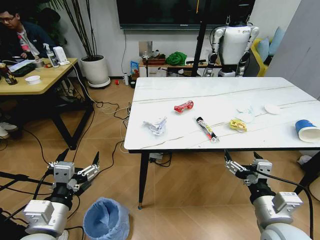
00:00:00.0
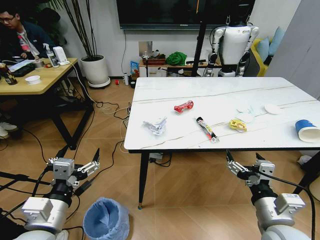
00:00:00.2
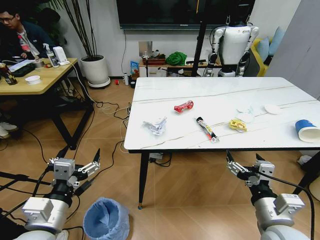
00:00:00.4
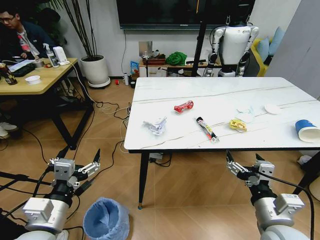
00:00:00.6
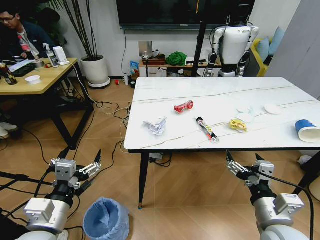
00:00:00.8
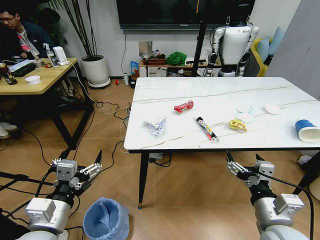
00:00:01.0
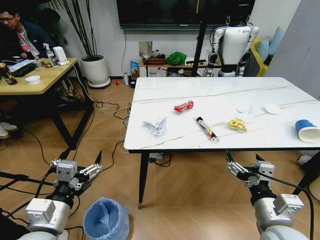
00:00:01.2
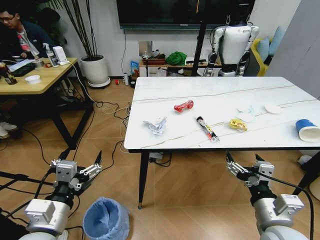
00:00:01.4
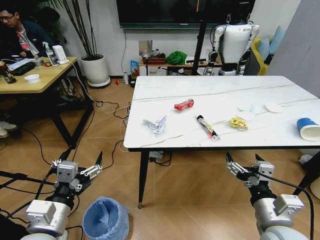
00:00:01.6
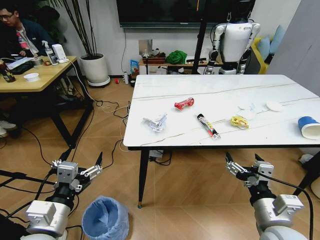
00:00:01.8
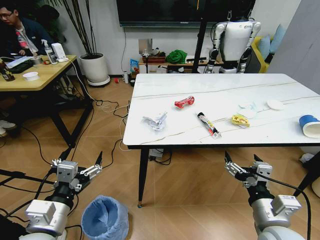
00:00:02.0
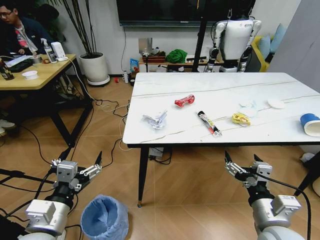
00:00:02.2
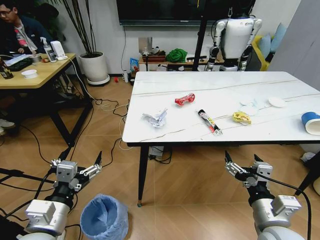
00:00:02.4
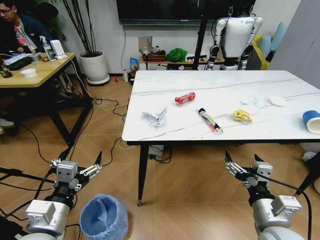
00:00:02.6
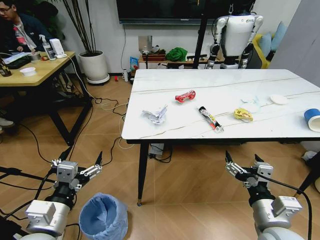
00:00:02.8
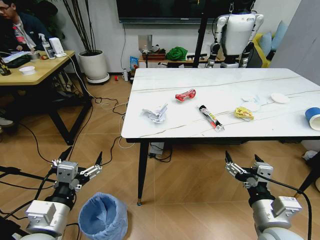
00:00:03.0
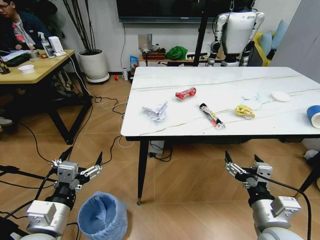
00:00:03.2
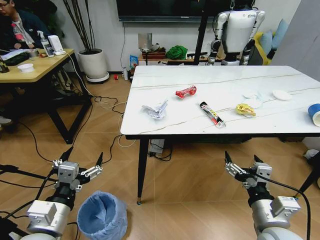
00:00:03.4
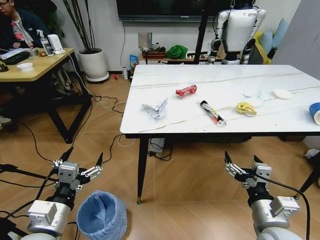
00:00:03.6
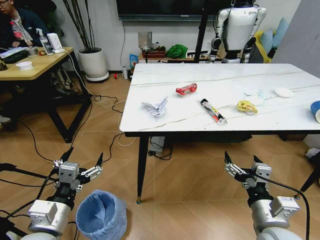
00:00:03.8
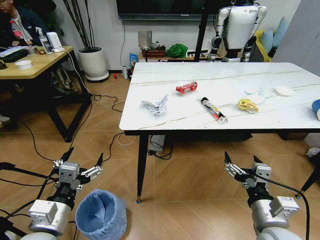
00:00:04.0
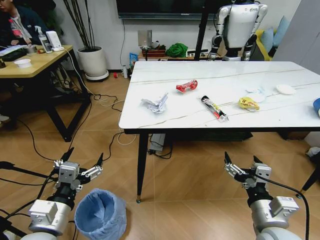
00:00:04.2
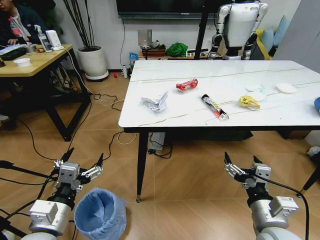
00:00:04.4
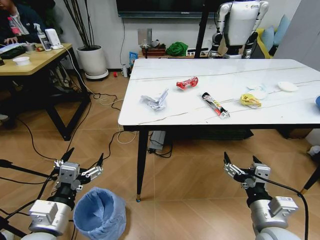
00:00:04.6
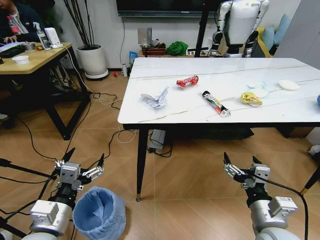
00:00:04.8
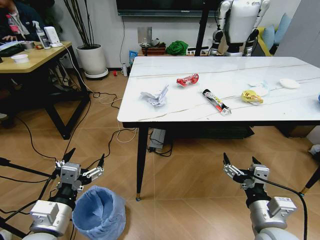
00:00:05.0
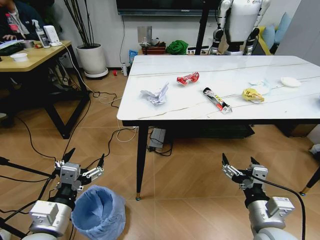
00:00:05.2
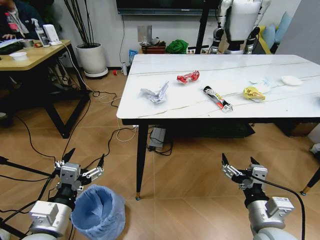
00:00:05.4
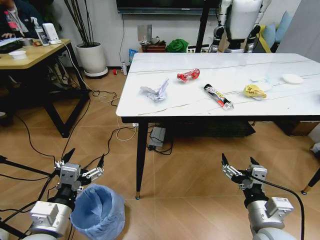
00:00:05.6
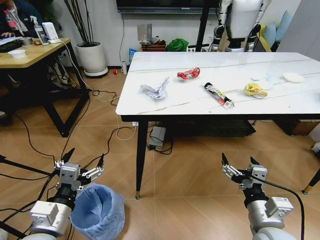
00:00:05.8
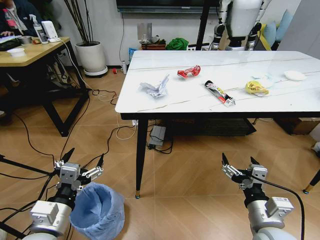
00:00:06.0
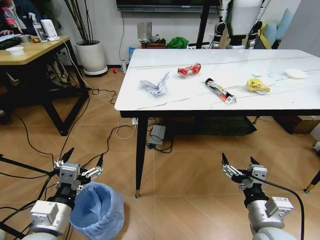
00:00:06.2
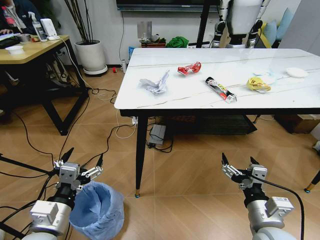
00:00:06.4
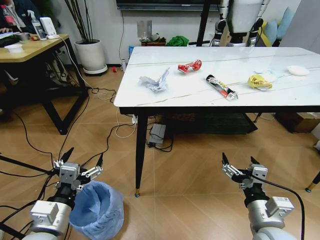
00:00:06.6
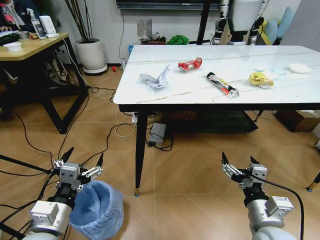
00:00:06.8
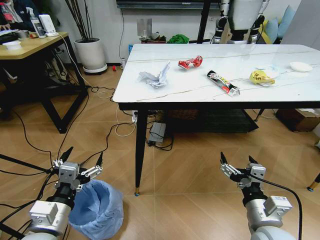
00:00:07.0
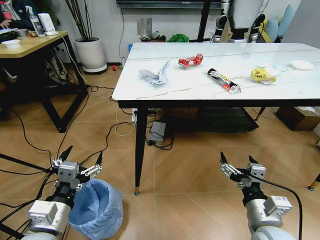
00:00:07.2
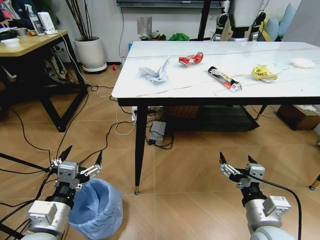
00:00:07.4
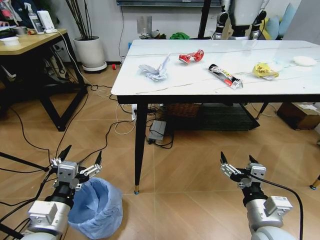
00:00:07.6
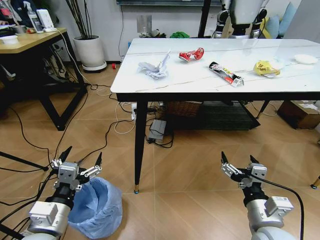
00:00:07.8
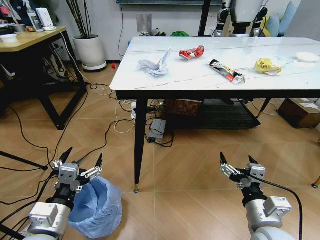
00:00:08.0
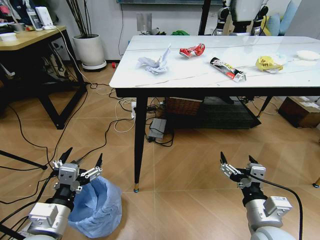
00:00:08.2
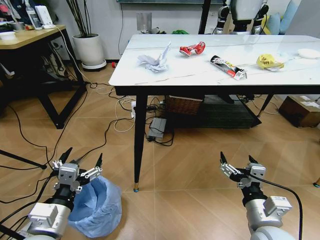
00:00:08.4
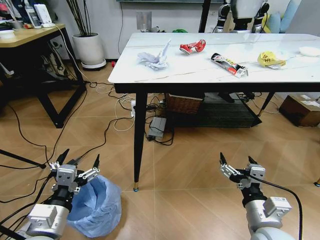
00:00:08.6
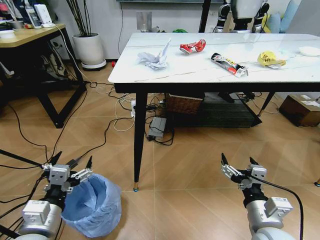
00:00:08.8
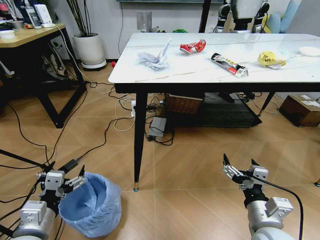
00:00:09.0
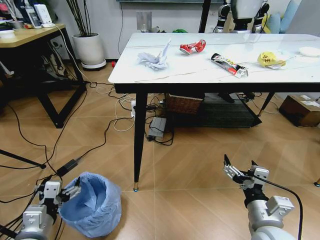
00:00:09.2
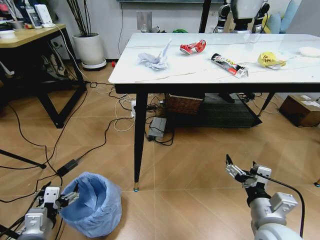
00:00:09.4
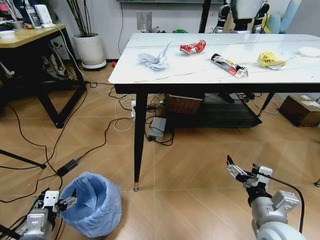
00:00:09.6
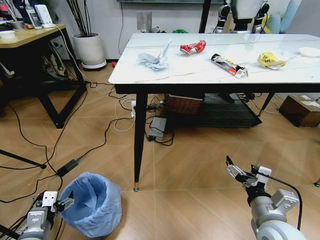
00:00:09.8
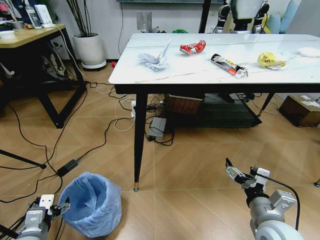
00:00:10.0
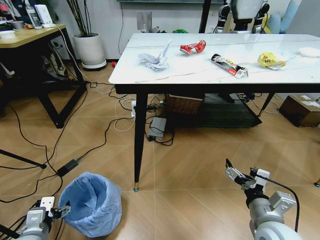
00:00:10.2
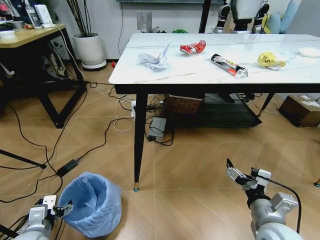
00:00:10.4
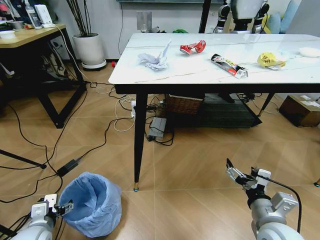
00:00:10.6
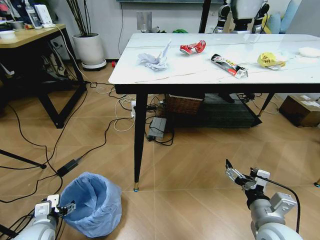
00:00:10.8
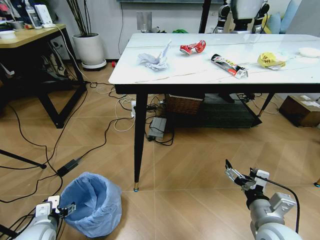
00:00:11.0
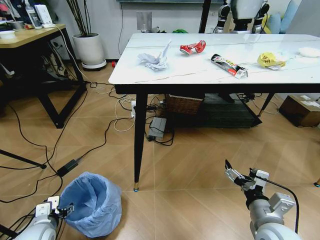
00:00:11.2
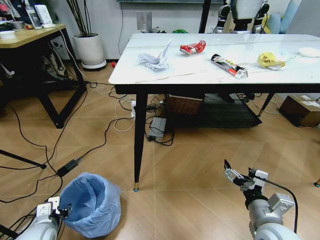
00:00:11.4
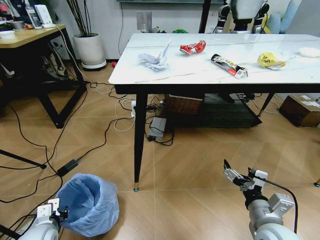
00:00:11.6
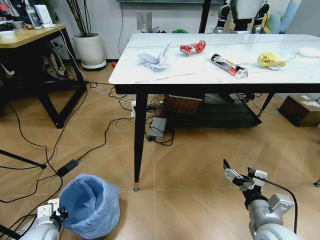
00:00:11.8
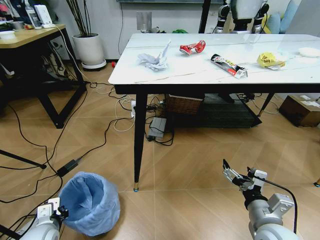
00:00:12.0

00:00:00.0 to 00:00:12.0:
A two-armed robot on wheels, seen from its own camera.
Task of the whole recording: Pick up the trash bin and place the trash from the table into it.
00:00:09.0 to 00:00:10.4: The left gripper shifts about 10 cm downward and to the left.
00:00:10.4 to 00:00:12.0: The left gripper closes its fingers.

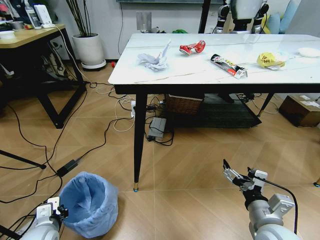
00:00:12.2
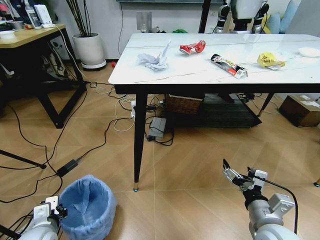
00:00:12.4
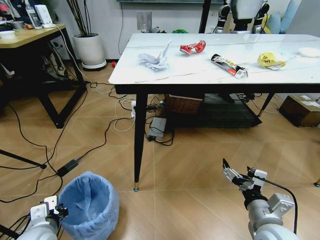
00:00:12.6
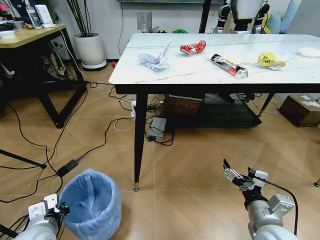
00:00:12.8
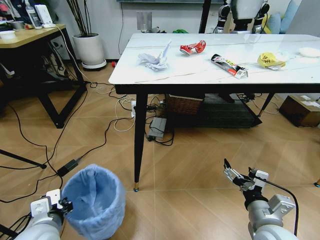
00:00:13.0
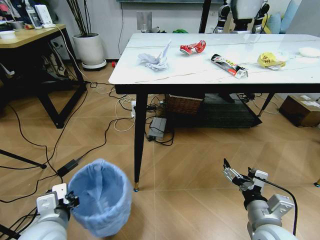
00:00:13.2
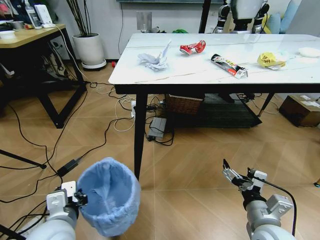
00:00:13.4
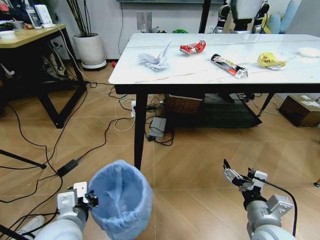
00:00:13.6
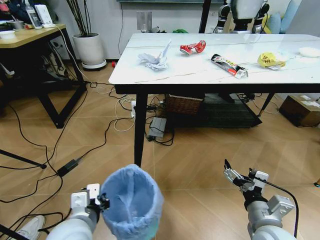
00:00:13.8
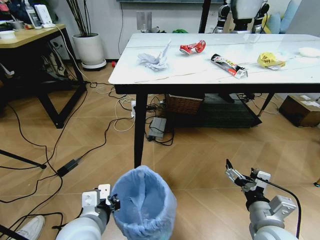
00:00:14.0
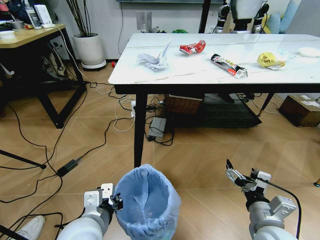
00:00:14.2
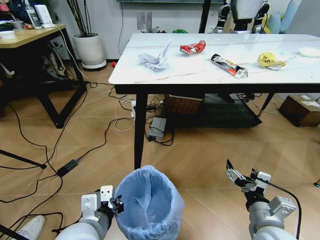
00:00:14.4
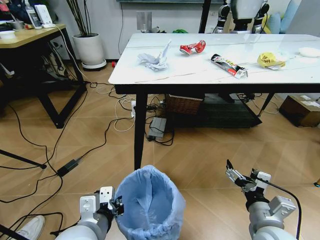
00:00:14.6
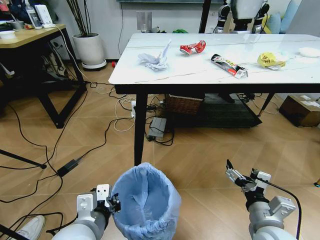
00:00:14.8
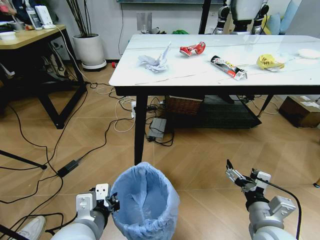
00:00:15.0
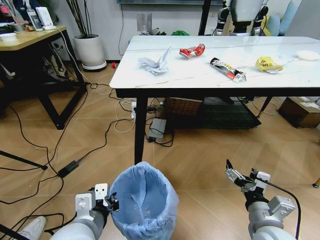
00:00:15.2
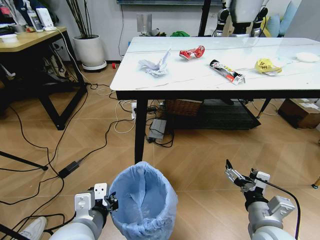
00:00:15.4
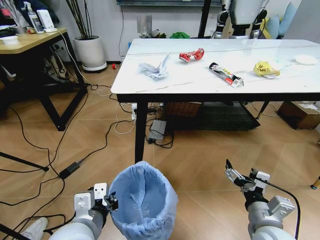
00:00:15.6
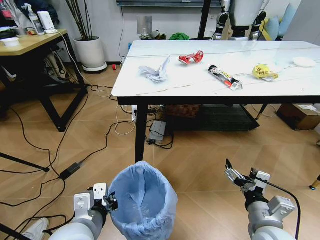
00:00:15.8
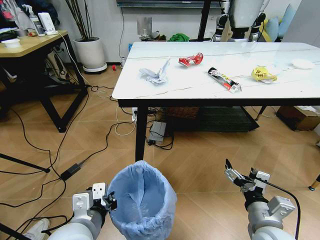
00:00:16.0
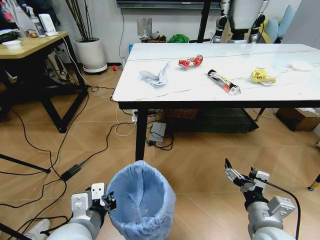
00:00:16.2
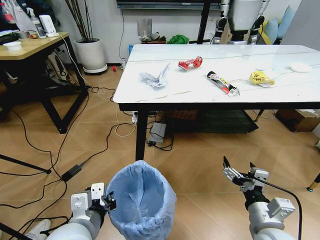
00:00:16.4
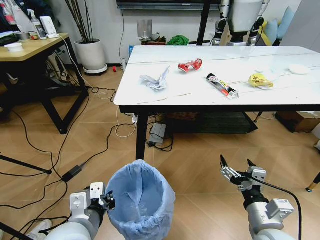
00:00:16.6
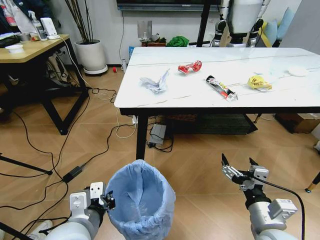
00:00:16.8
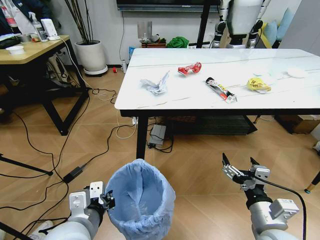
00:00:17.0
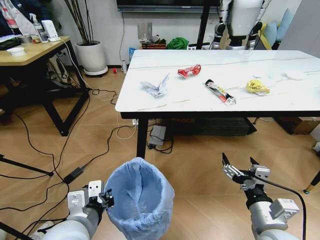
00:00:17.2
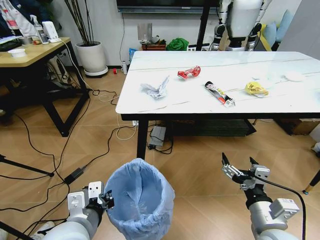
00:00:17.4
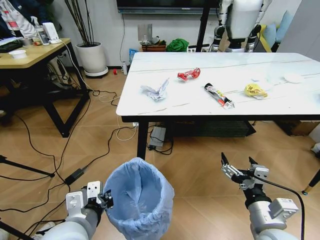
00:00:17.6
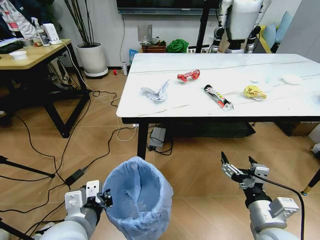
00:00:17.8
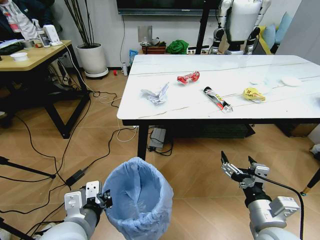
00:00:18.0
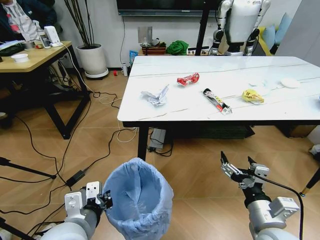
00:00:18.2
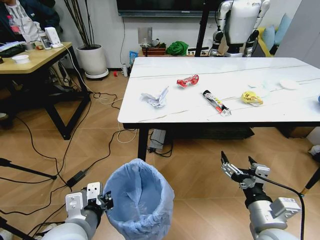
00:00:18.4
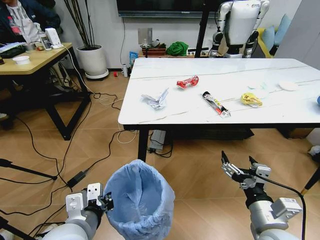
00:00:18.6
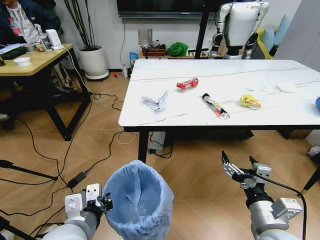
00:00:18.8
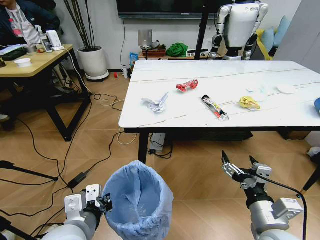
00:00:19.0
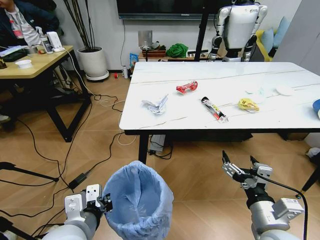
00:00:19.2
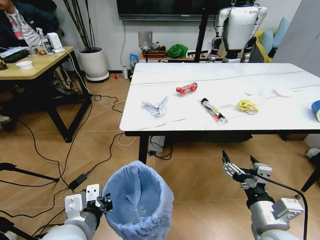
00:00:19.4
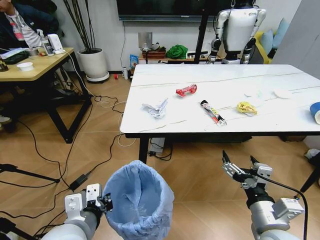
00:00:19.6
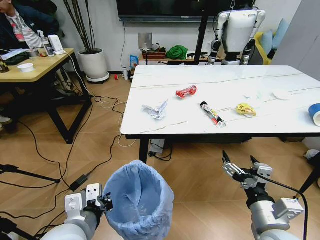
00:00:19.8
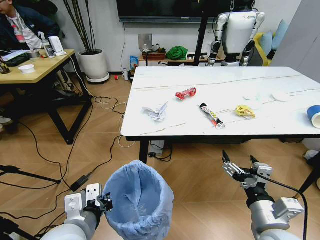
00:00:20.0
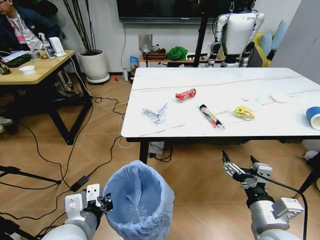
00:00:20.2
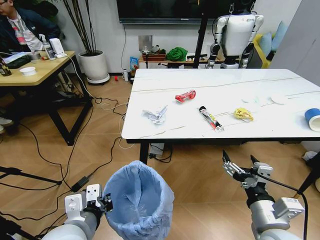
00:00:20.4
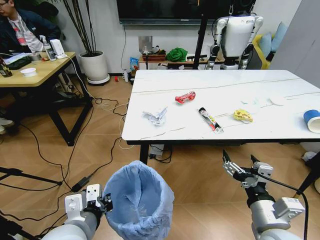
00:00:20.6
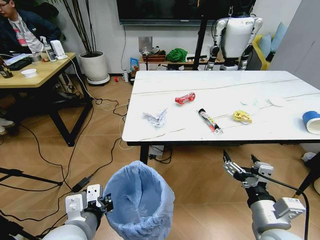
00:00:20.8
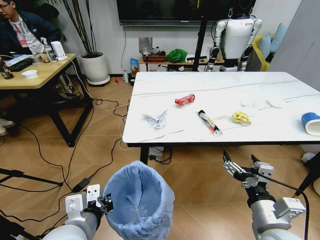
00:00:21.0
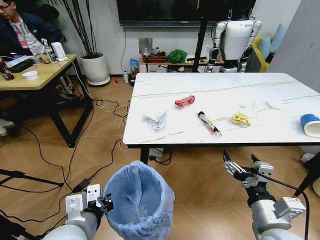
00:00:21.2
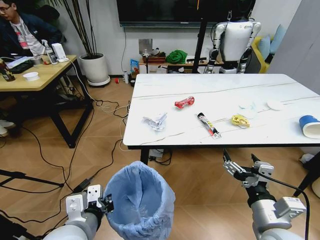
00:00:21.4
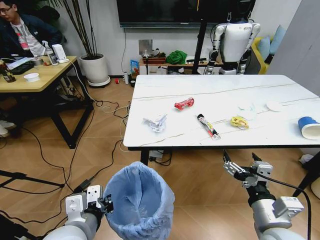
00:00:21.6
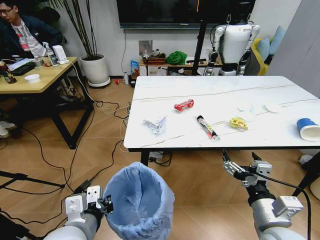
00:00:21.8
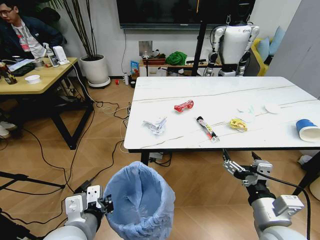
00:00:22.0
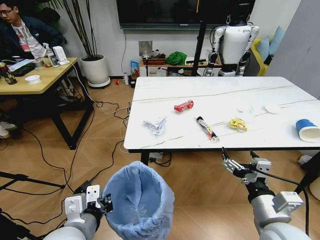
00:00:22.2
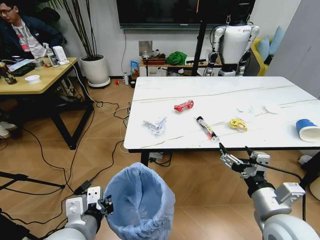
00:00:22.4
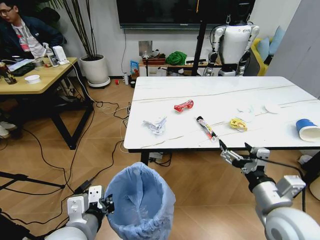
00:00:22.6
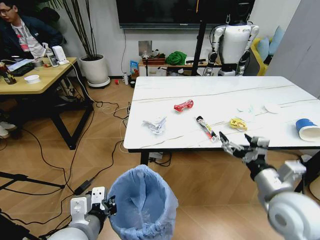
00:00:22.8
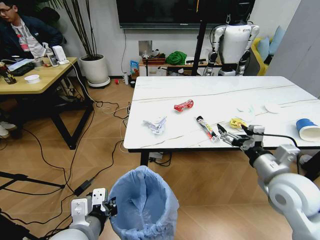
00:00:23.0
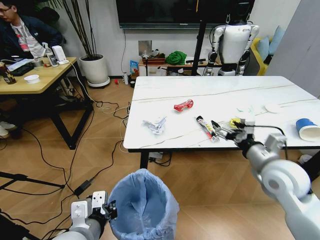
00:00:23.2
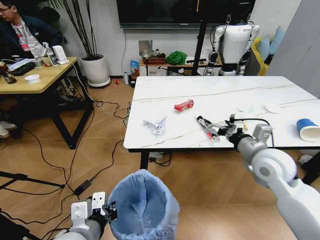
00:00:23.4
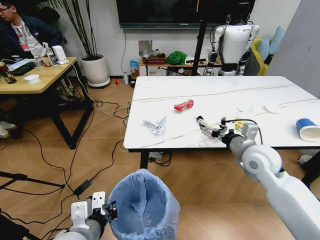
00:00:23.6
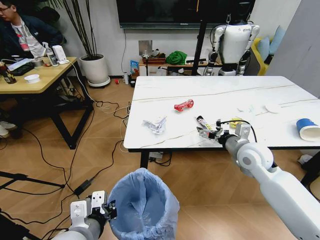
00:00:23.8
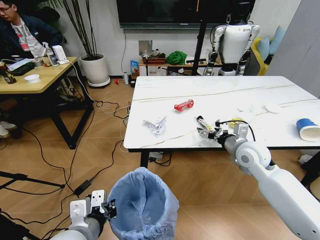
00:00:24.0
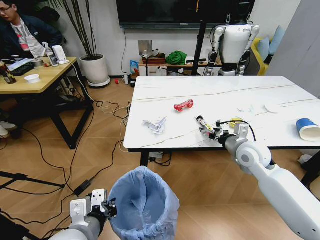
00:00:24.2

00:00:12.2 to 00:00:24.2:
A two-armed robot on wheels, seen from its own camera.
Task of the whole recording: Pick up the trash bin and place the trash from the table into it.
00:00:12.2 to 00:00:13.8: The left gripper moves to the right and upward, some 20 cm.
00:00:13.8 to 00:00:15.2: The grippers stay close to where they were, moving slightly.
00:00:21.2 to 00:00:22.6: The right gripper ends up about 5 cm from where it was.
00:00:22.6 to 00:00:24.2: The right gripper goes roughly 20 cm forward.
